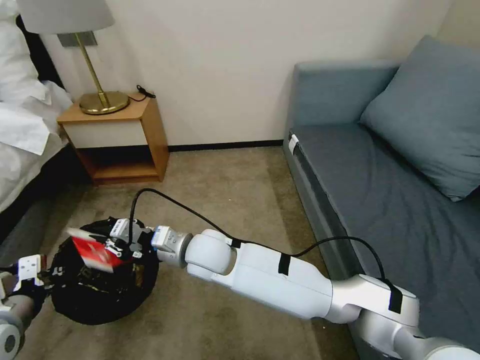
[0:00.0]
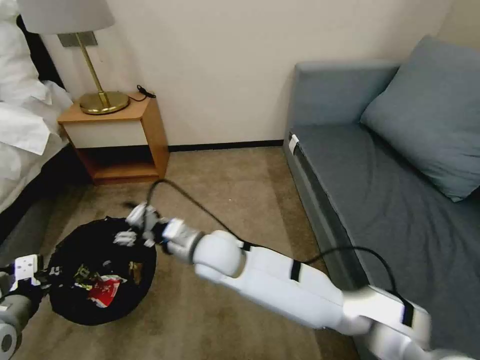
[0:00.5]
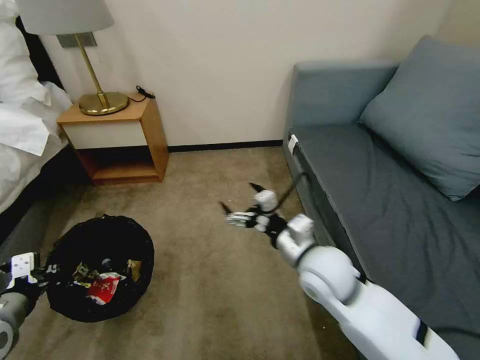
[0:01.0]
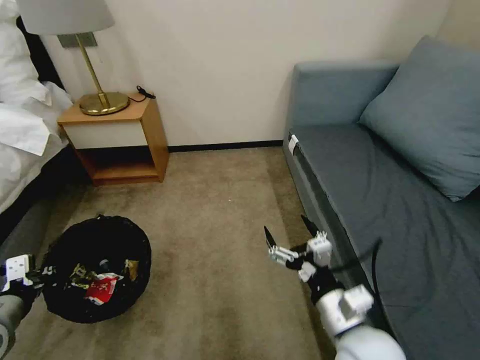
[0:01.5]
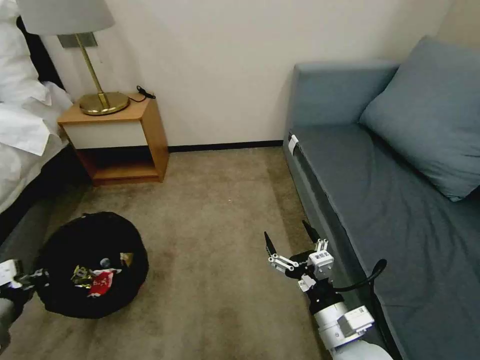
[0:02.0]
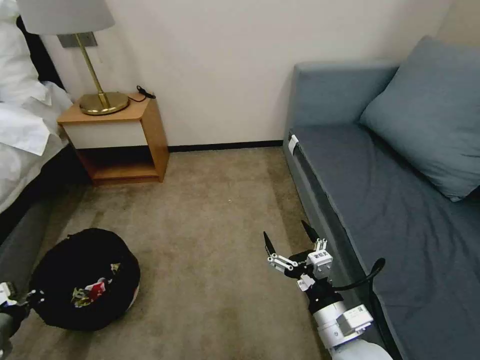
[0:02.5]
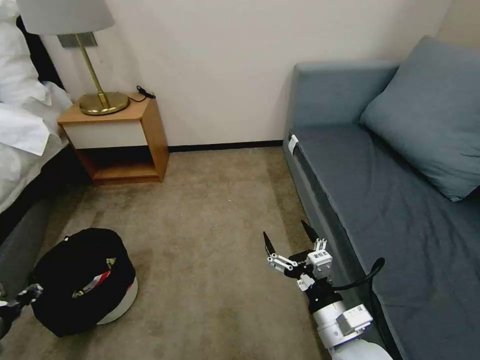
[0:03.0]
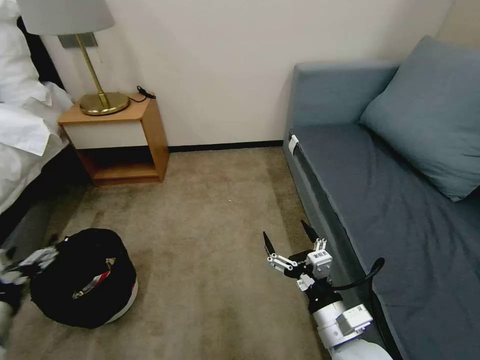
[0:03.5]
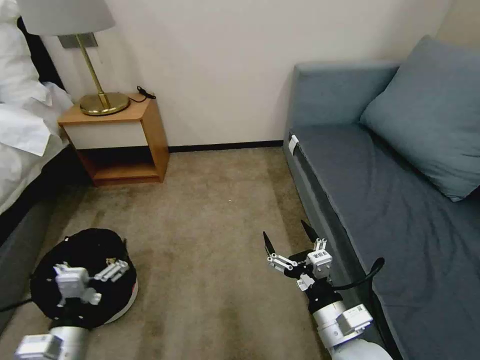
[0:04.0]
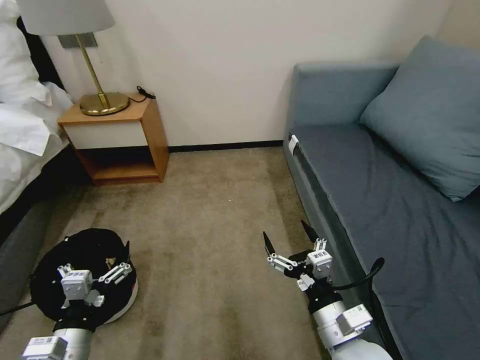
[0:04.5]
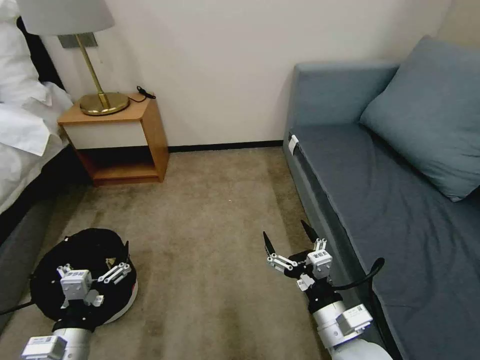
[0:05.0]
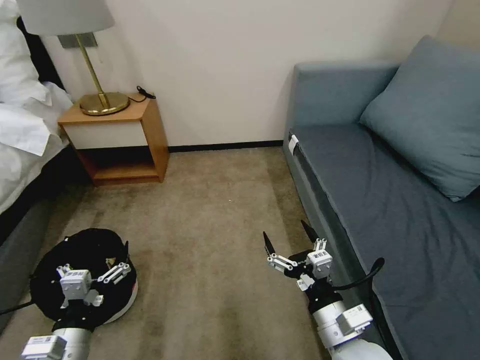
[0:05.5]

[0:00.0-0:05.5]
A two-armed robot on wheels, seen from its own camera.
Task of the whole recording: Pick up the trash bin, then pick up the garbage on the floor and place it into the trash bin.
0:00.0 to 0:02.0: The left gripper shifts some 5 cm to the left. Meanwhile the right gripper is displaced to the right and backward by about 35 cm, and opens up.
0:02.0 to 0:03.5: The left gripper opens.
0:03.5 to 0:05.5: The left gripper goes some 15 cm to the right and downward.
